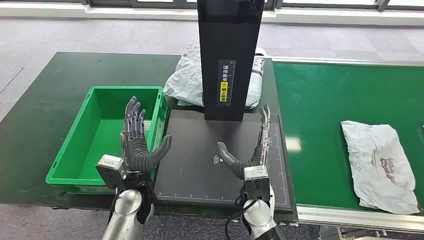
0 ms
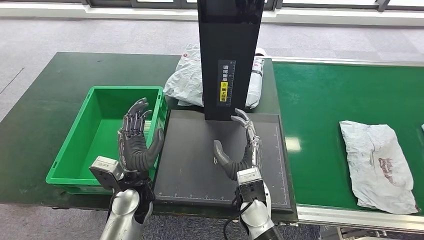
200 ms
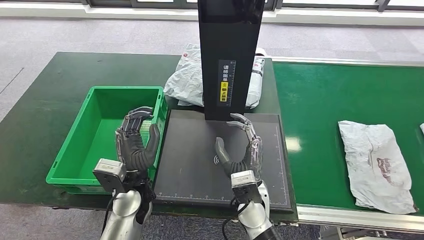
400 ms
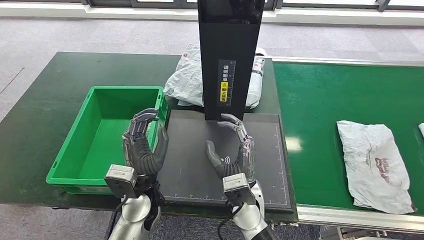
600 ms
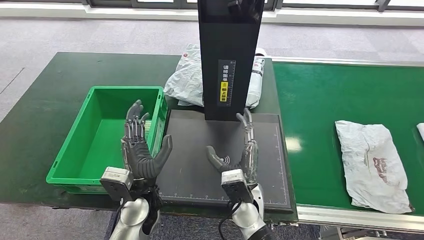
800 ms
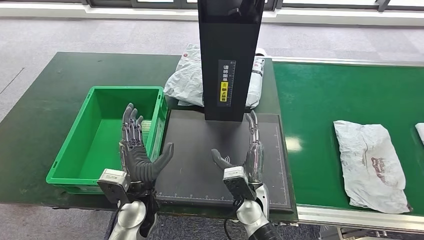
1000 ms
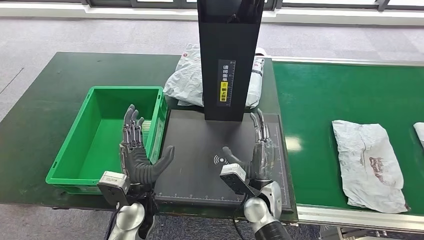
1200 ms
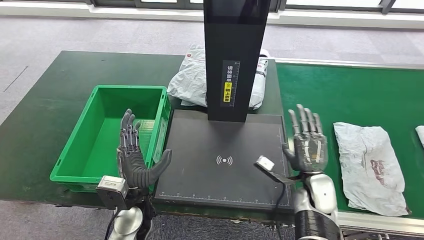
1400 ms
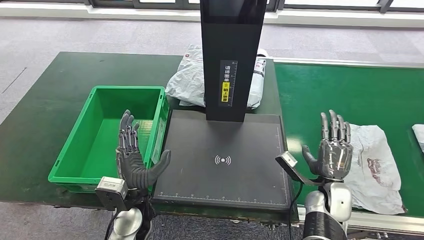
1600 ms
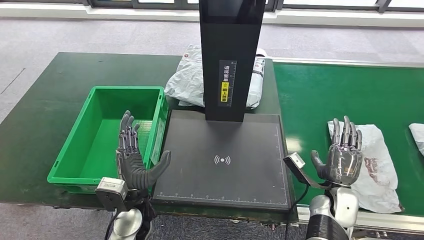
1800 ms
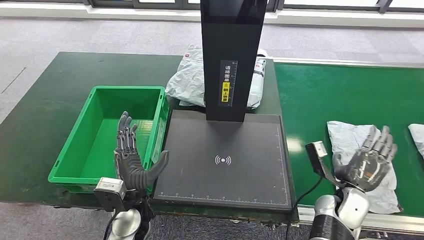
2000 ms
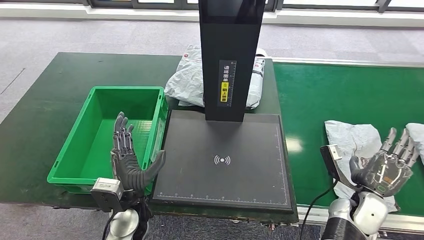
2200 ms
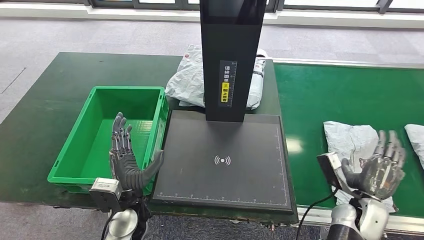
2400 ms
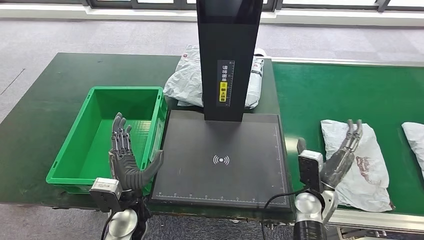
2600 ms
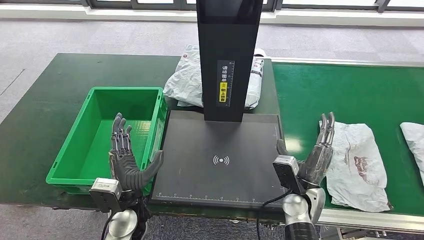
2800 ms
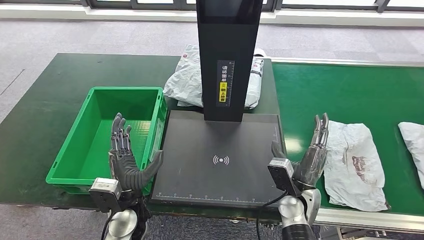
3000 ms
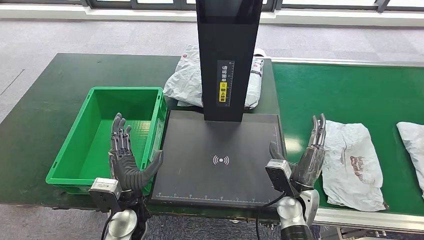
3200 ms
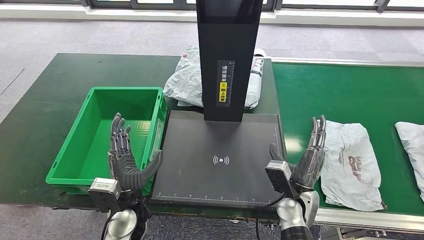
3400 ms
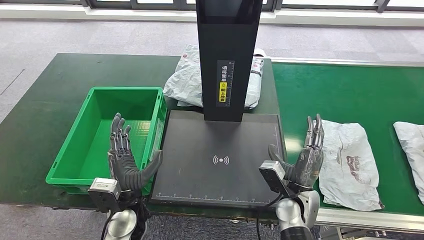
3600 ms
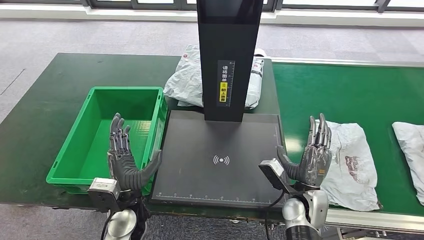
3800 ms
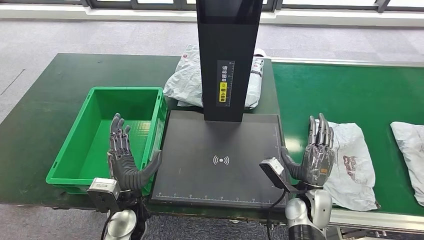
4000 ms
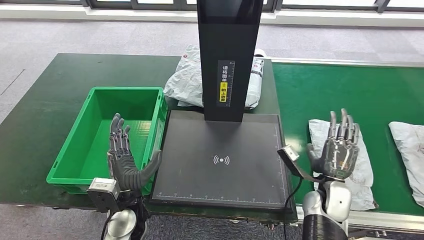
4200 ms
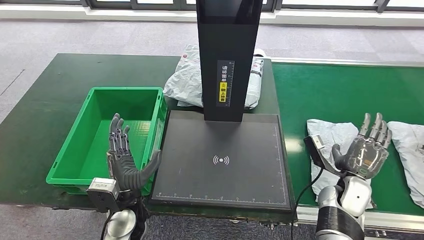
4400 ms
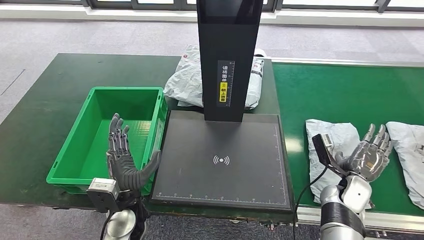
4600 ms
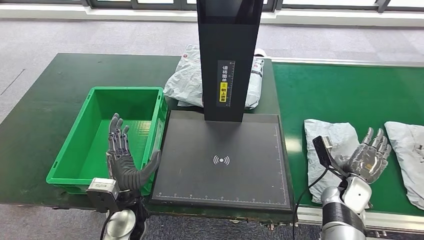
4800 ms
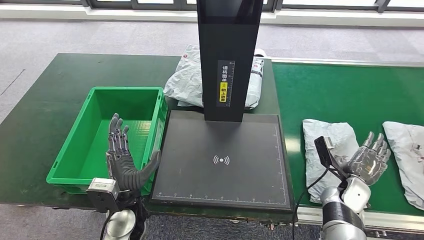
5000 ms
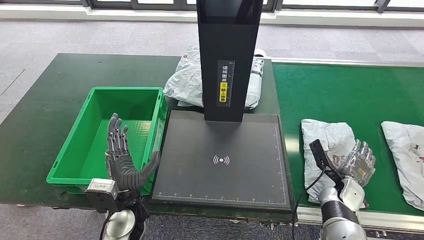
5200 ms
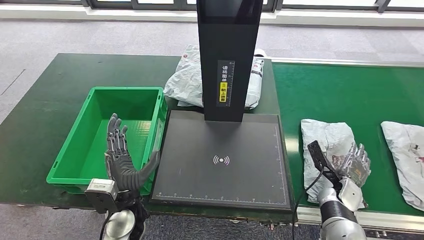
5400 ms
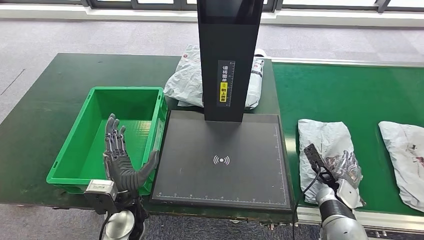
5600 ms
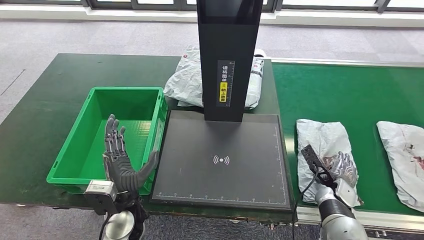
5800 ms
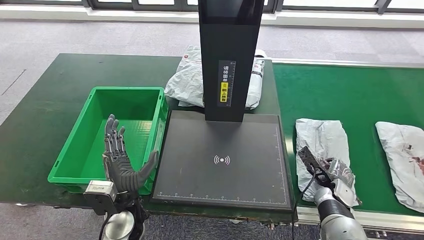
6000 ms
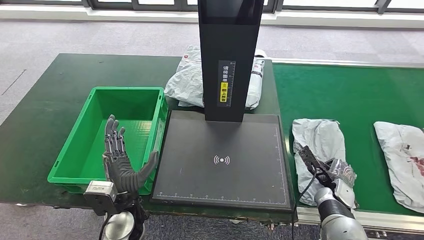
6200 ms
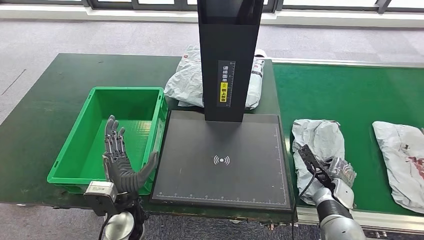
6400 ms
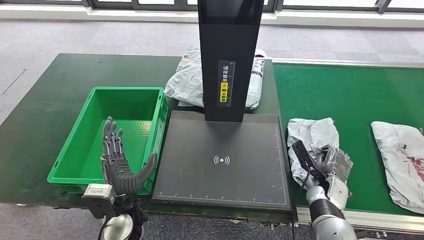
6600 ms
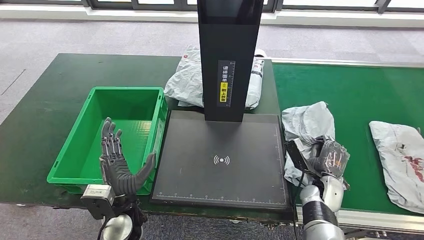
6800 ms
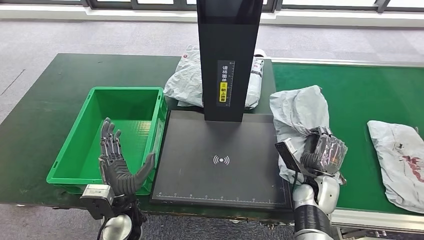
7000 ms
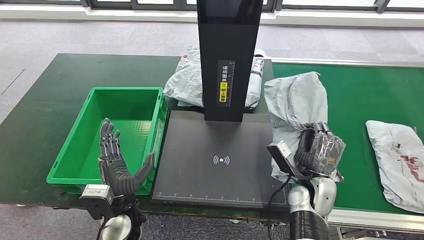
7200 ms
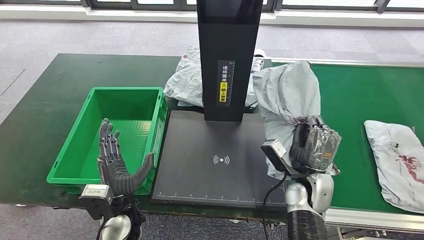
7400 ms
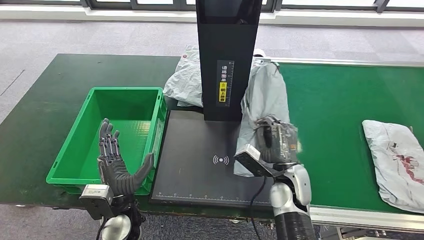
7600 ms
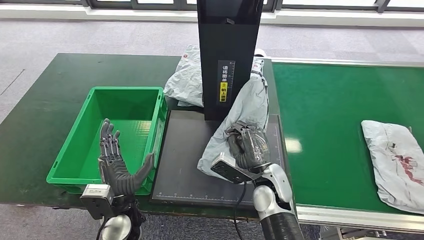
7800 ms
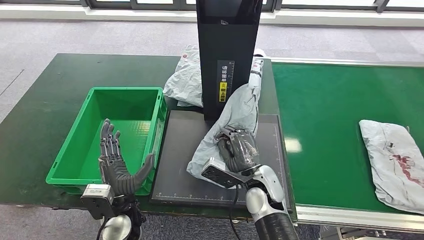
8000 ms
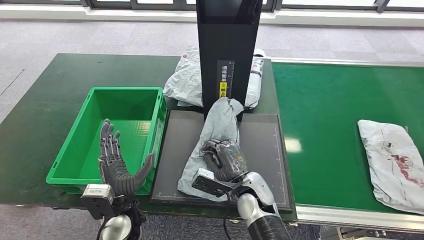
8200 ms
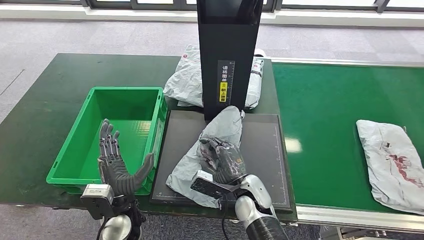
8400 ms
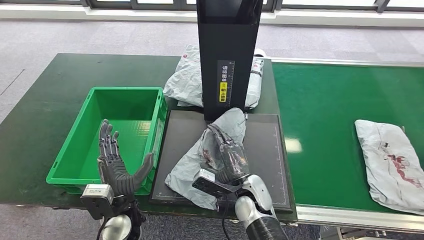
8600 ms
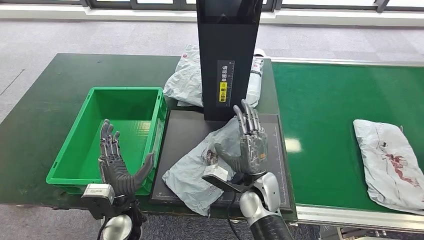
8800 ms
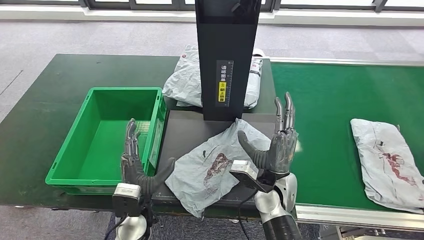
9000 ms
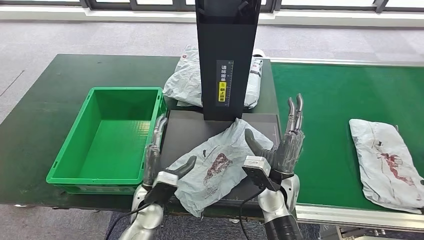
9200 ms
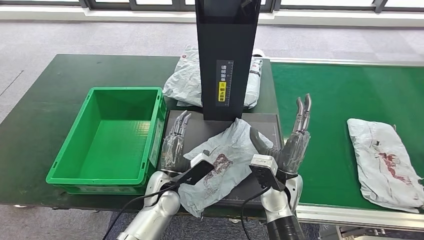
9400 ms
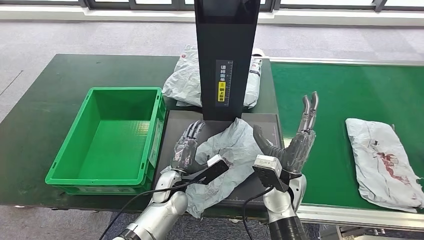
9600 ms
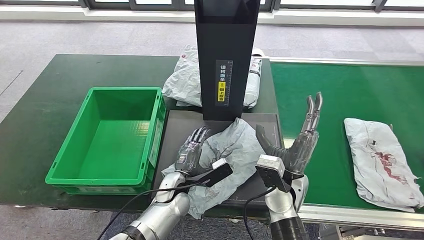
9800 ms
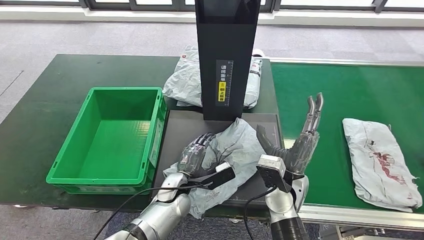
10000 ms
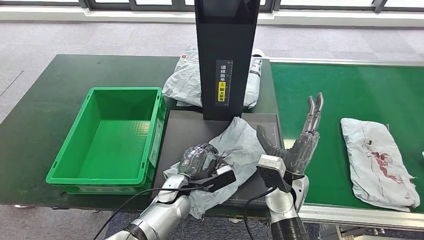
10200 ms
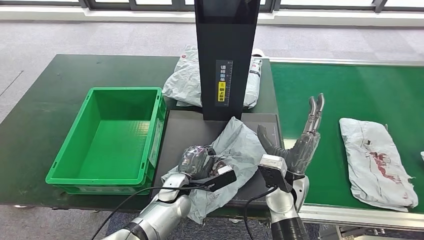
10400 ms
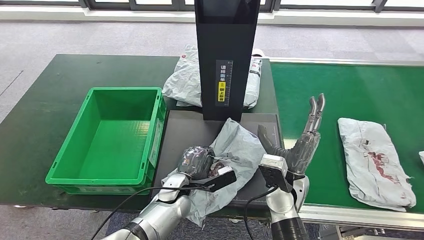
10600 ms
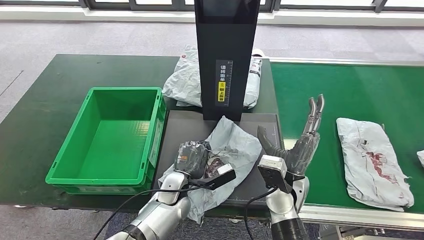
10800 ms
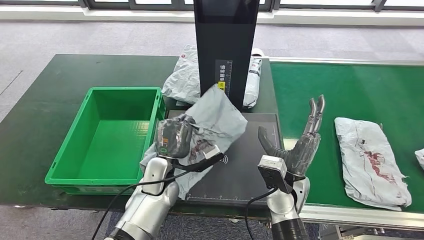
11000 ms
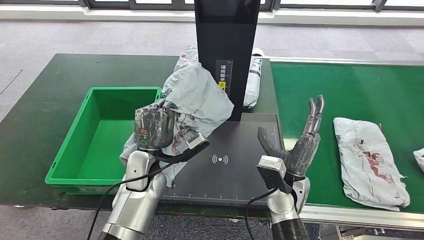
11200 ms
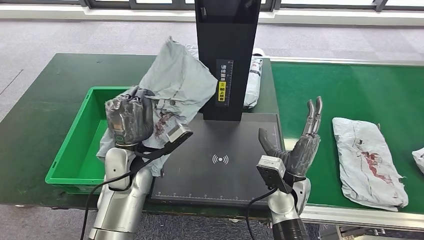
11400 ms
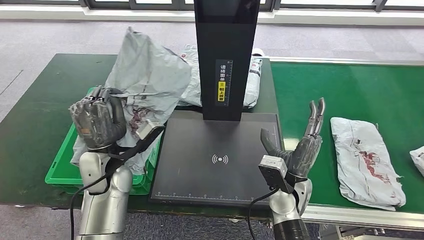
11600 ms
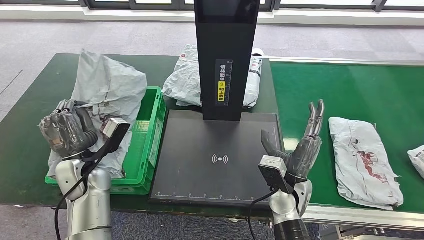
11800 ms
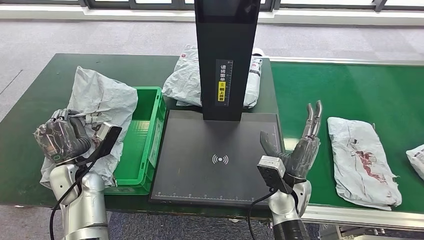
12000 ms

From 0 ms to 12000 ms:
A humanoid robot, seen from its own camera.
Step, from 0 ms to 6800 ms: Take the parcel off the conveyor belt.
Step, from 7200 ms to 9400 ms: Place the parcel onto the inbound machine.
Step, from 10000 ms to 11400 ms: Pick up the parcel from the inbound machine.
From 3000 ms to 4400 ms: The right hand moves to the right, approximately 15 cm.
From 4400 ms to 6000 ms: The right hand travels downward by some 5 cm.
From 9000 ms to 10400 ms: The left hand heads forward, to the right and downward, covering approximately 10 cm.

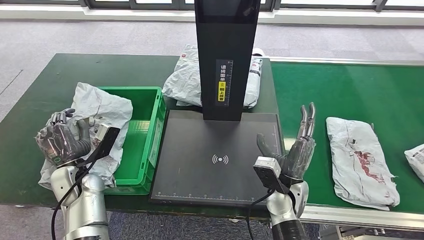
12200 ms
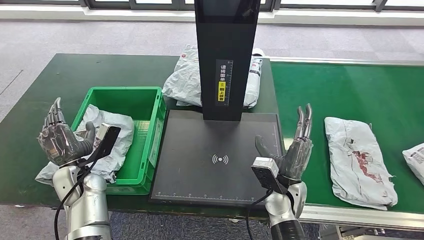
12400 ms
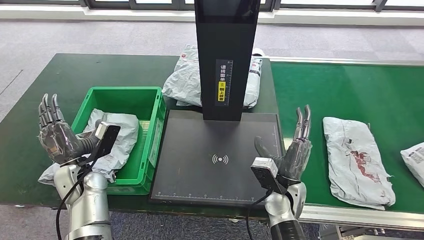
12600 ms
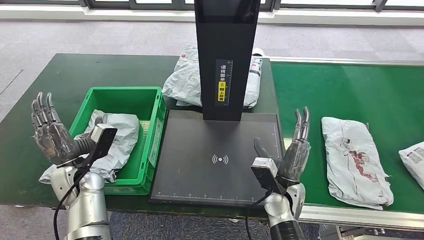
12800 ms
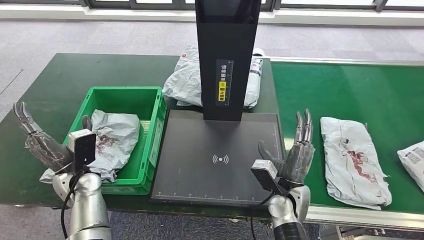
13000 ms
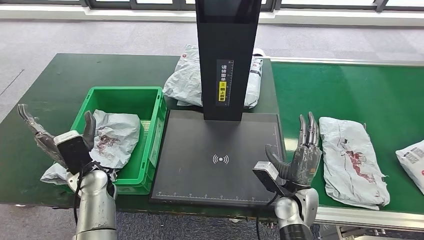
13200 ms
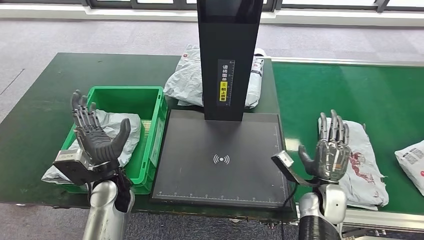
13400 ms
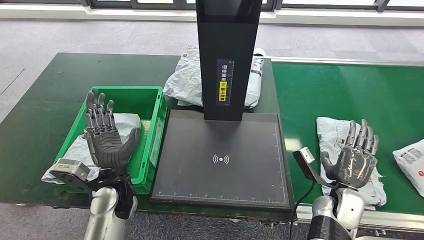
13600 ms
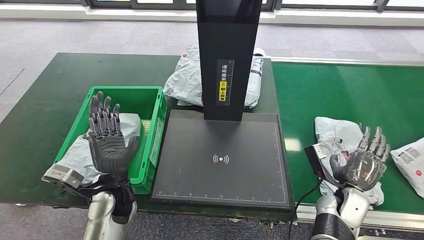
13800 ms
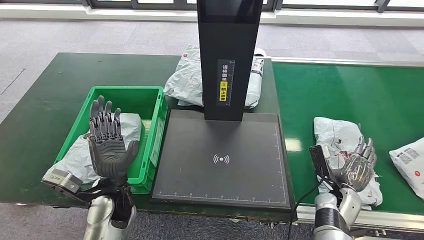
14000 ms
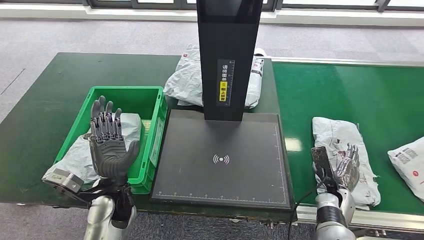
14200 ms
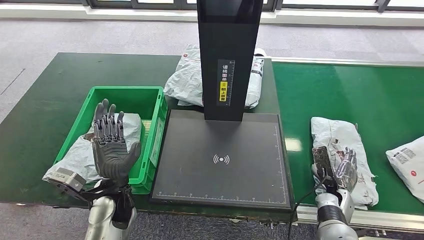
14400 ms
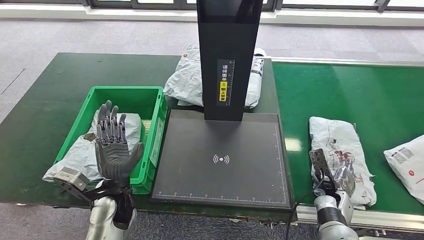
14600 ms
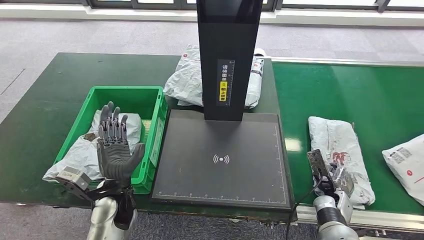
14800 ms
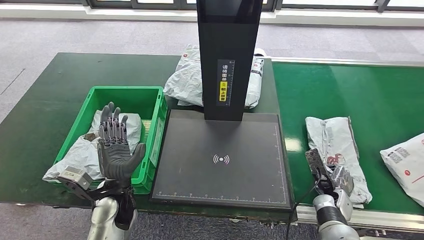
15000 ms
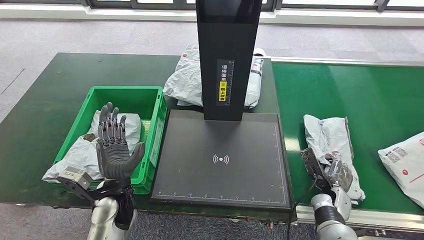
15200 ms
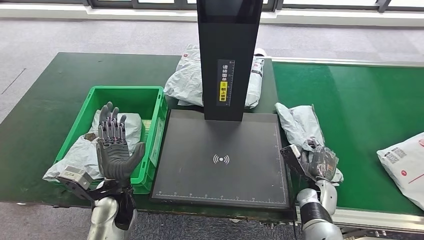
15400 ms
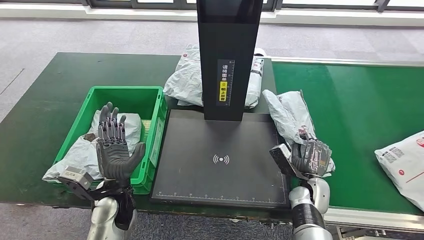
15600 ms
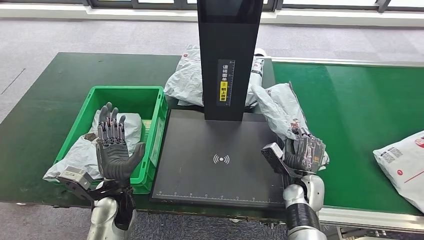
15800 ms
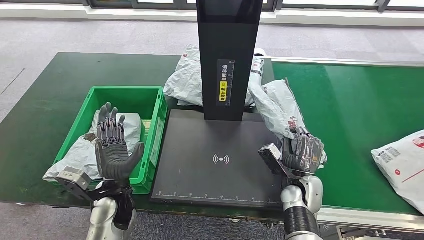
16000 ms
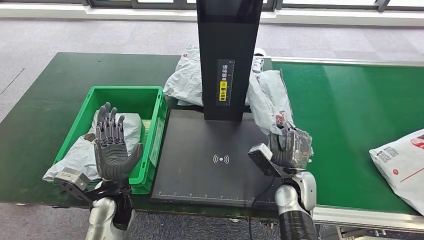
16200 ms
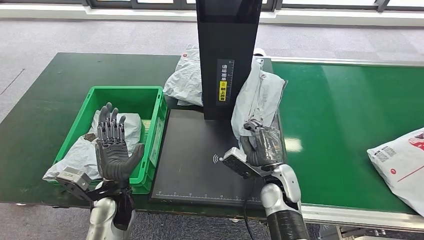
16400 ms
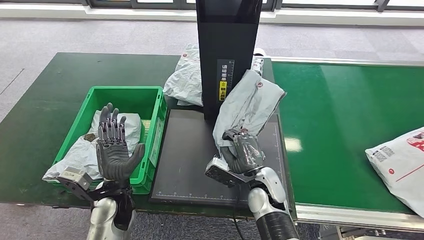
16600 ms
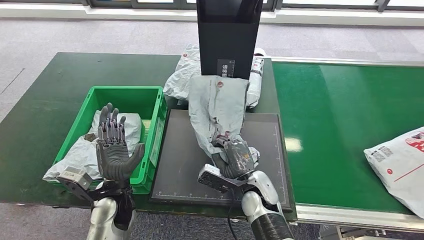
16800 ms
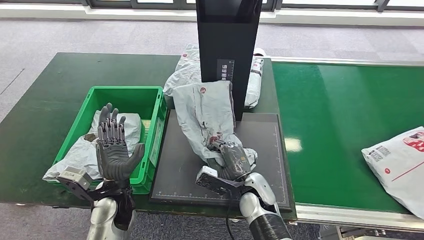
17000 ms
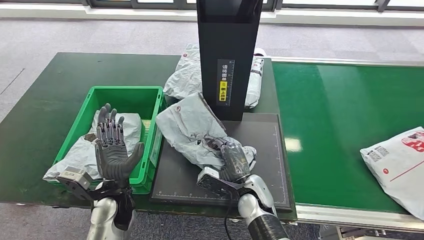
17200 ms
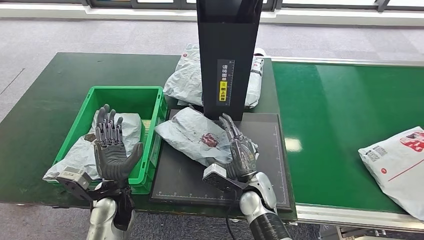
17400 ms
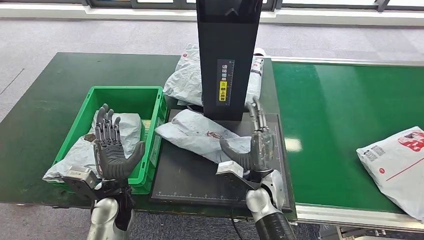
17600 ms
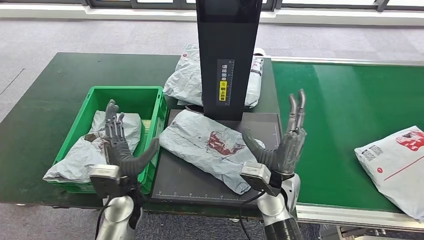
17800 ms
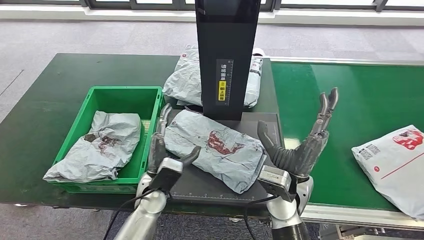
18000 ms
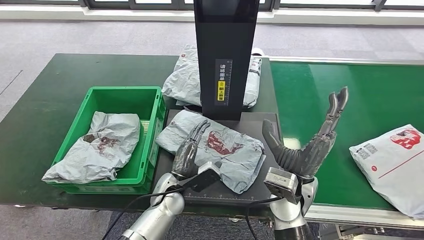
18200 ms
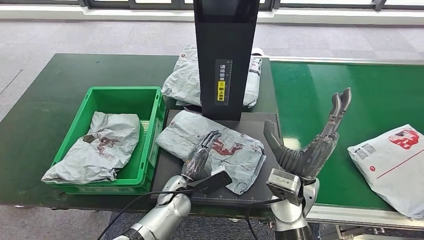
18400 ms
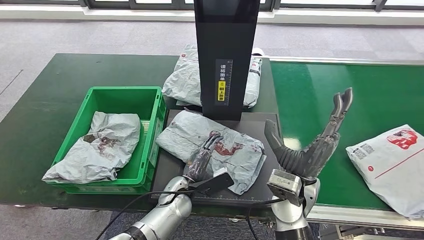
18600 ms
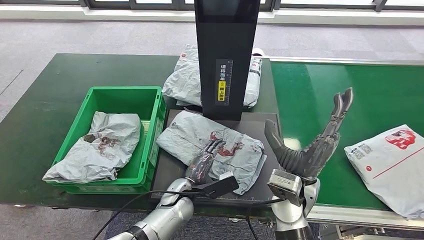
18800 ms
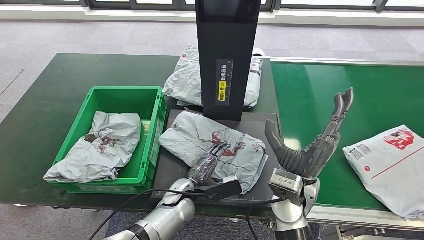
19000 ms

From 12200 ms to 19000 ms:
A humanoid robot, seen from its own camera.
Step, from 12200 ms to 13400 ms: Put the parcel inside the courier box.
Step, from 14000 ms to 15800 ms: Pick up the parcel from the conveyor belt.
Step, from 16400 ms to 18000 ms: Place the parcel onto the inbound machine.
From 13600 ms to 15000 ms: The right hand is displaced downward by some 5 cm.
From 15000 ms to 16200 ms: The right hand shifts approximately 15 cm to the left and upward.
From 16200 ms to 17600 ms: The right hand travels to the left by roughly 10 cm.
